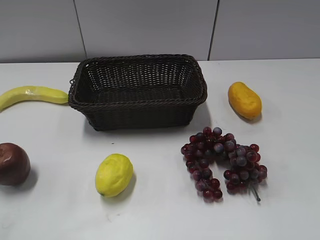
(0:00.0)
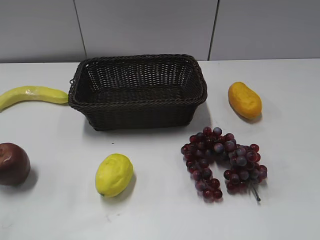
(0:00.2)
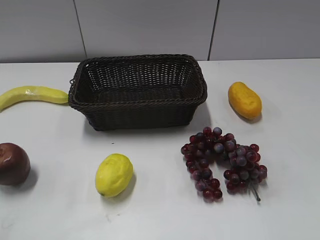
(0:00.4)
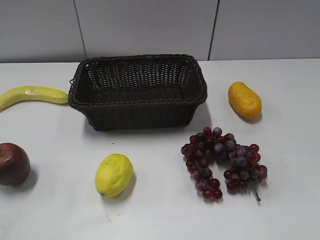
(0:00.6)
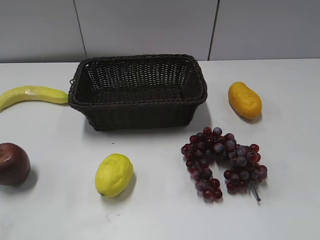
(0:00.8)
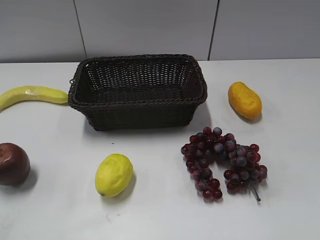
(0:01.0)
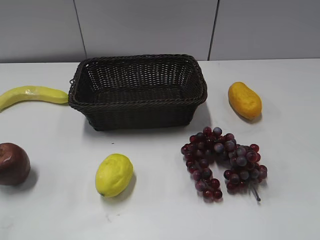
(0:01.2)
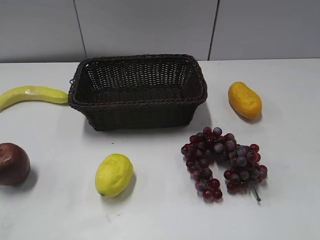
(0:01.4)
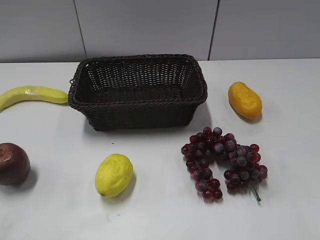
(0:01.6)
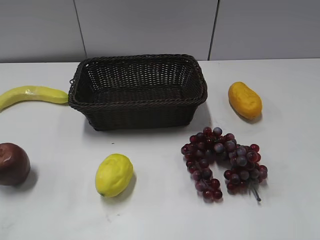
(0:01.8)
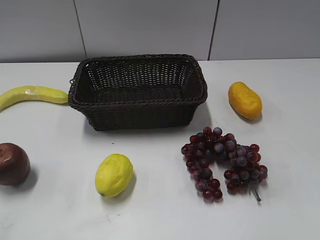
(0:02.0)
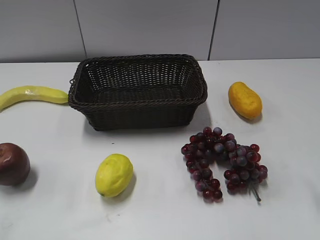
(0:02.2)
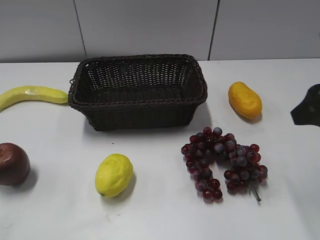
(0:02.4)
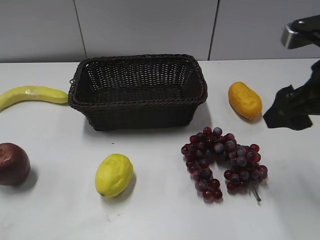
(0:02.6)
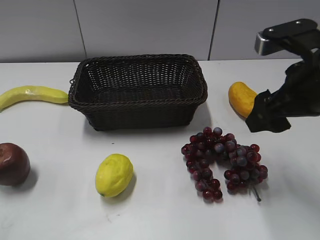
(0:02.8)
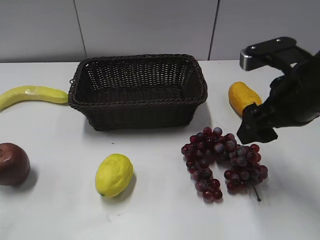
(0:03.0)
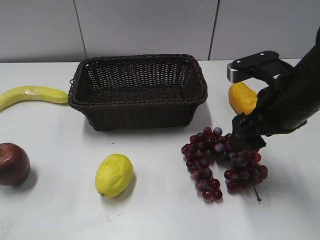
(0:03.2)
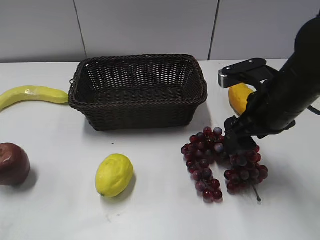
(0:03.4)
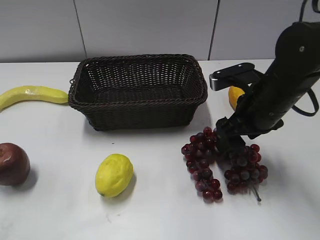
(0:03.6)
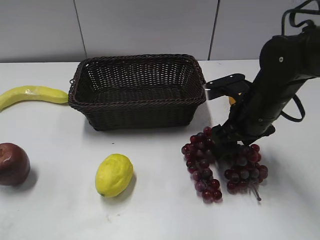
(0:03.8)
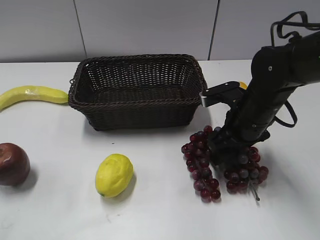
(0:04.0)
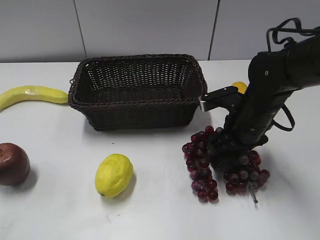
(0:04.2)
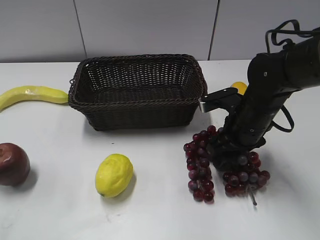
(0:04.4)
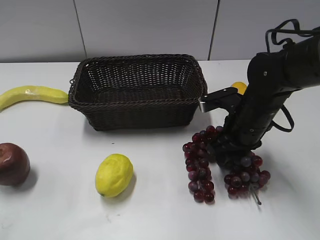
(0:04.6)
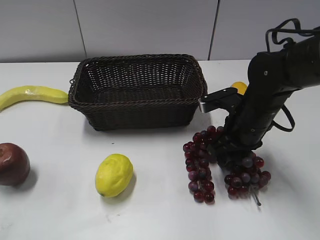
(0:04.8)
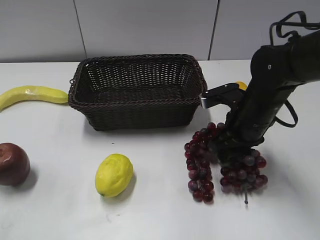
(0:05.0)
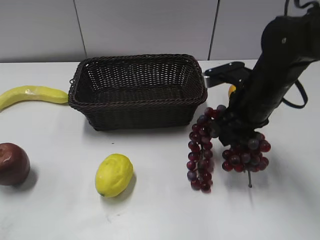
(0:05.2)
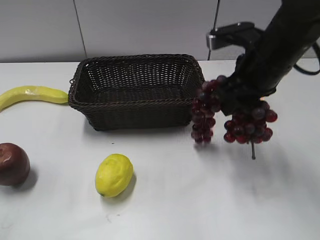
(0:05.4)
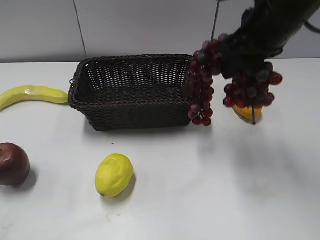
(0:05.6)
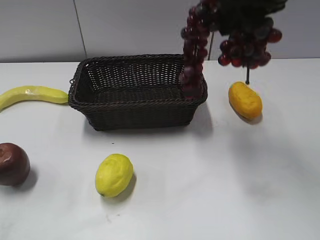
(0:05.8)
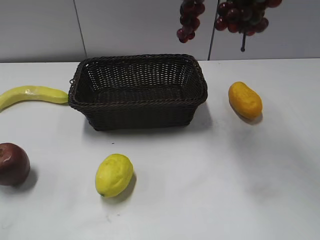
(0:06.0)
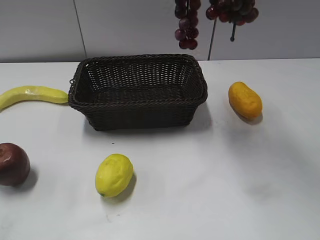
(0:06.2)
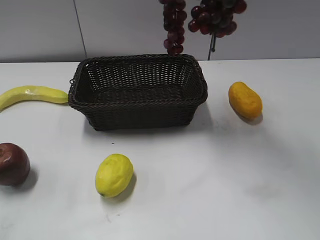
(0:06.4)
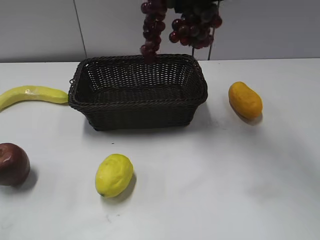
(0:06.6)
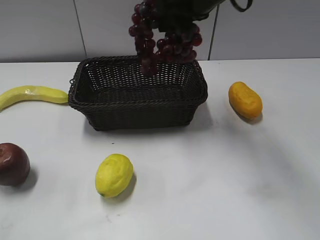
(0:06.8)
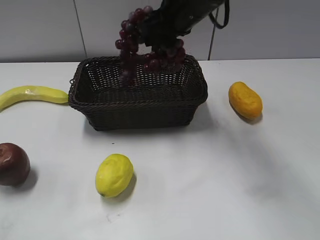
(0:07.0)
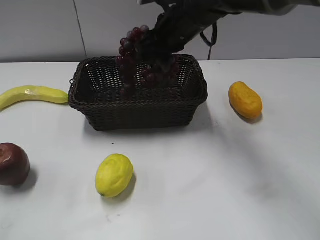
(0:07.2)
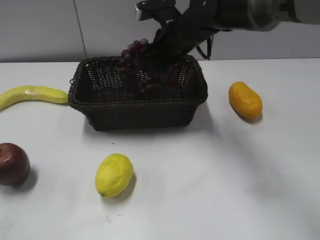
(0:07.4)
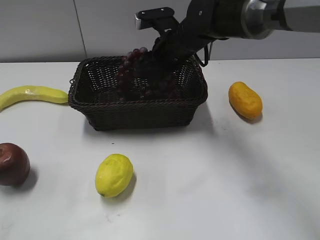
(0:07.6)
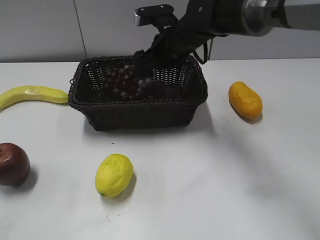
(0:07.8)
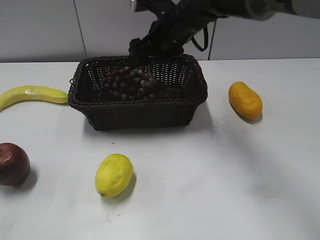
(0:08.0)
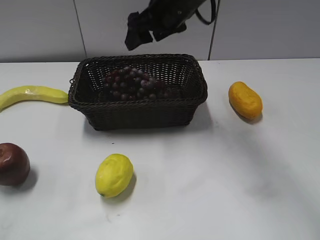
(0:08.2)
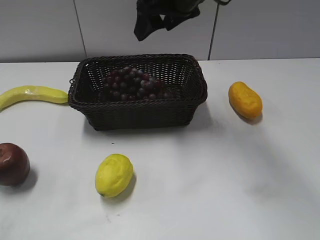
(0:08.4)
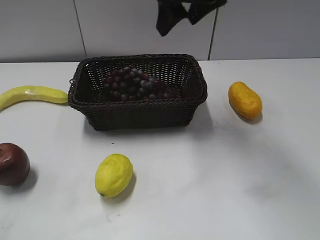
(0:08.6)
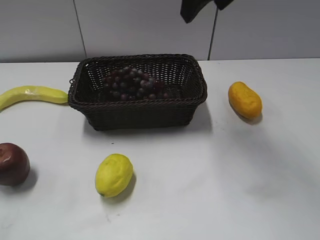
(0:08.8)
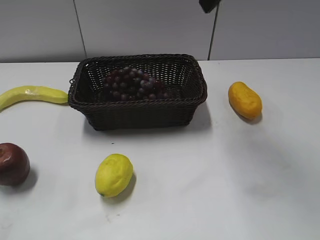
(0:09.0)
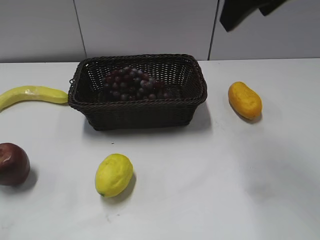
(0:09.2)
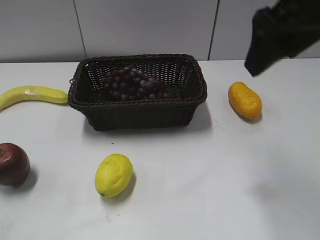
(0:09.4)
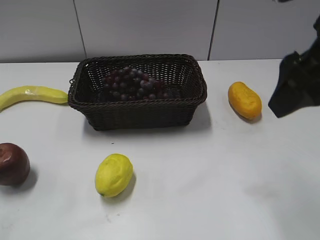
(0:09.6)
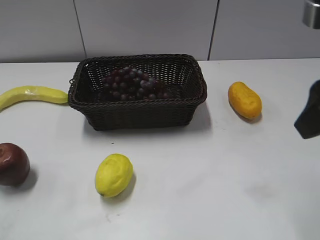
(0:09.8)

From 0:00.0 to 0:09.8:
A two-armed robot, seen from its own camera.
Step, from 0:02.2 to 0:05.2: Grasp the grape with right gripper.
Step, from 0:05.4 to 0:08.2: Place the grape in the basket with right gripper.
From 0:01.4 to 0:02.8: The right gripper travels forward and to the left by roughly 20 cm.
From 0:02.8 to 0:04.2: The right gripper heads downward and forward, covering some 15 cm.
From 0:04.2 to 0:05.6: The right gripper is displaced upward by approximately 20 cm, and closes.
From 0:05.6 to 0:07.0: The right gripper heads to the left and forward, covering approximately 15 cm, and travels upward and back again, approximately 10 cm each way.
From 0:07.0 to 0:08.4: The right gripper opens its fingers.
From 0:08.4 to 0:09.8: The right gripper shifts about 25 cm backward and to the right.

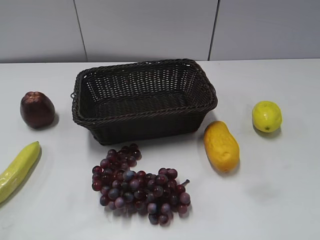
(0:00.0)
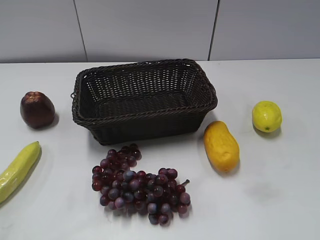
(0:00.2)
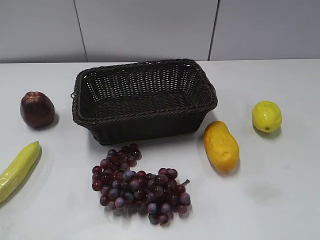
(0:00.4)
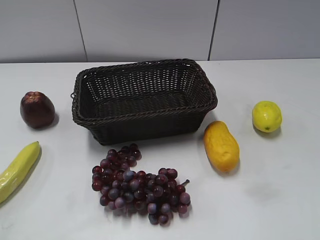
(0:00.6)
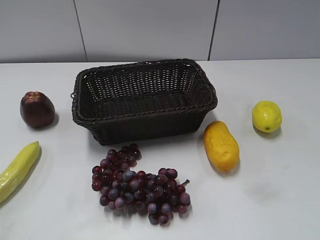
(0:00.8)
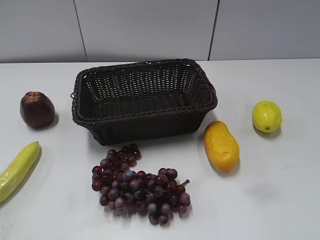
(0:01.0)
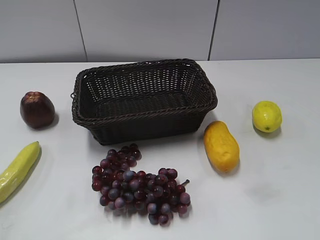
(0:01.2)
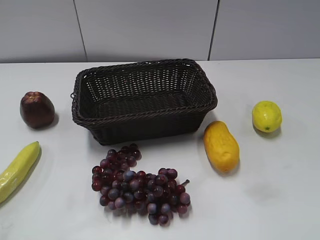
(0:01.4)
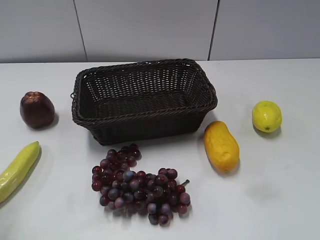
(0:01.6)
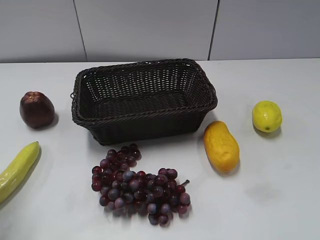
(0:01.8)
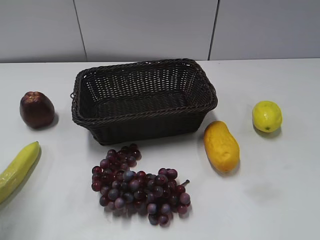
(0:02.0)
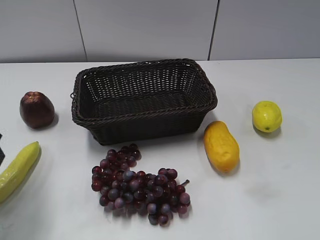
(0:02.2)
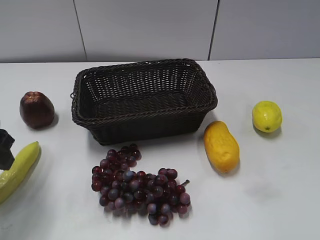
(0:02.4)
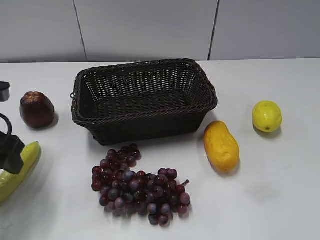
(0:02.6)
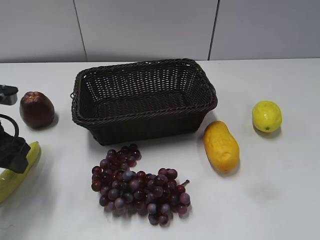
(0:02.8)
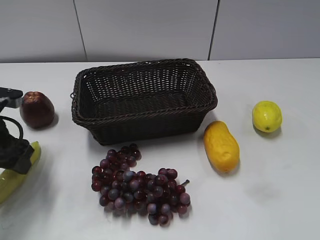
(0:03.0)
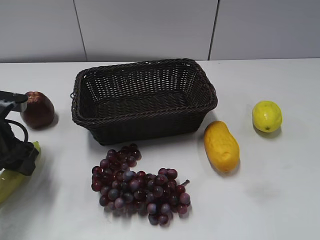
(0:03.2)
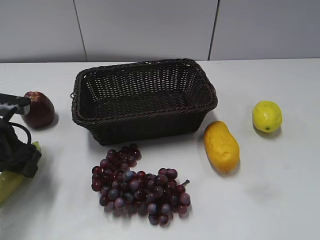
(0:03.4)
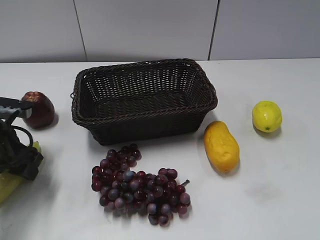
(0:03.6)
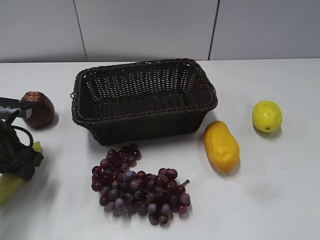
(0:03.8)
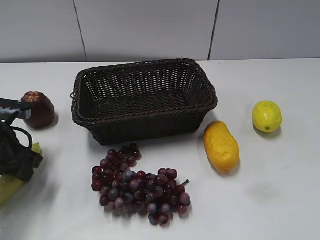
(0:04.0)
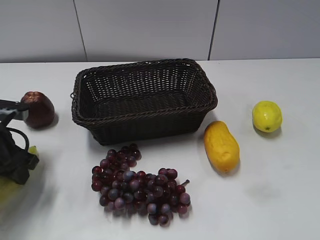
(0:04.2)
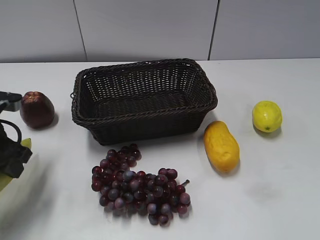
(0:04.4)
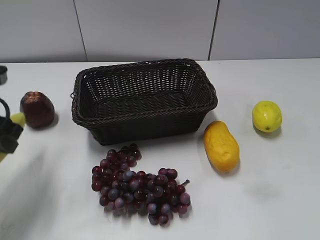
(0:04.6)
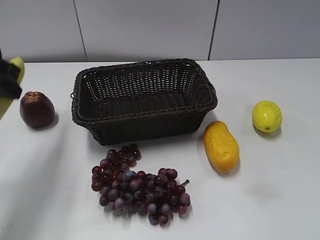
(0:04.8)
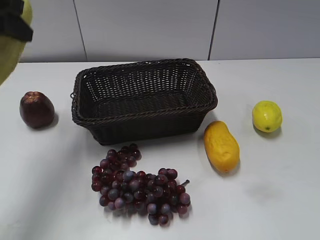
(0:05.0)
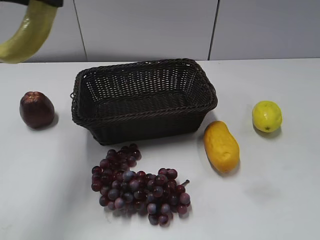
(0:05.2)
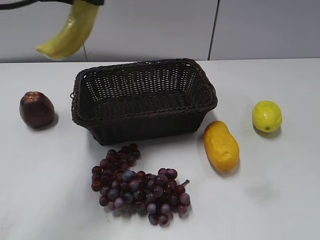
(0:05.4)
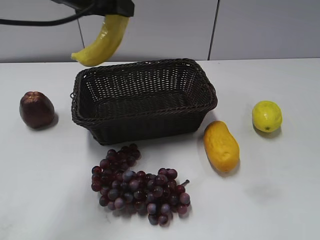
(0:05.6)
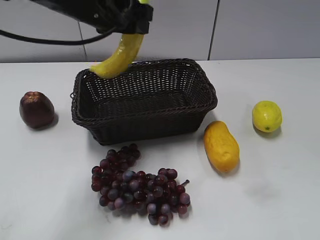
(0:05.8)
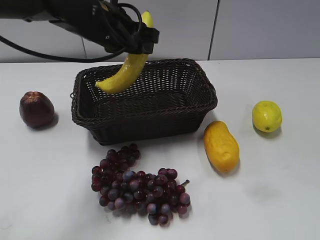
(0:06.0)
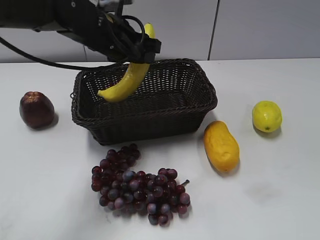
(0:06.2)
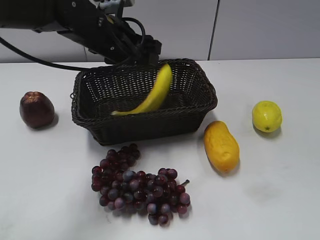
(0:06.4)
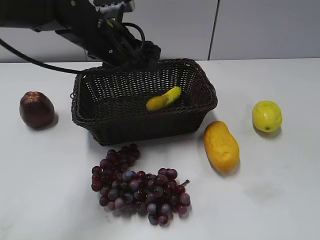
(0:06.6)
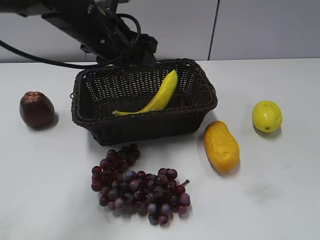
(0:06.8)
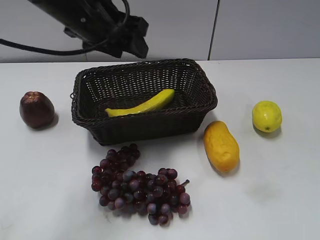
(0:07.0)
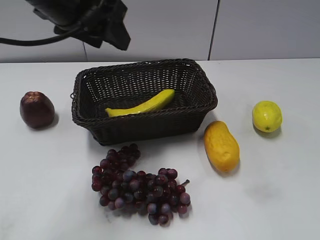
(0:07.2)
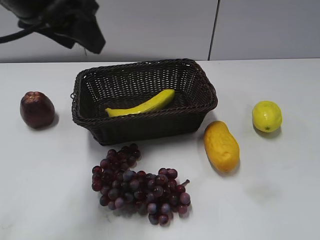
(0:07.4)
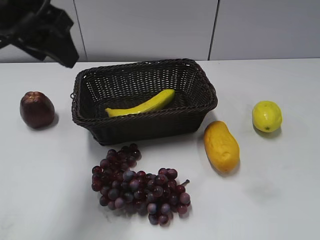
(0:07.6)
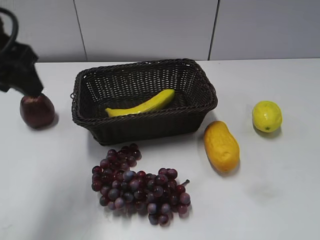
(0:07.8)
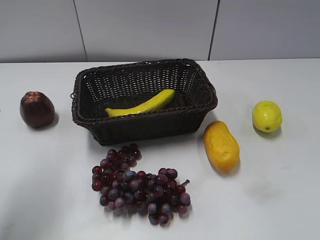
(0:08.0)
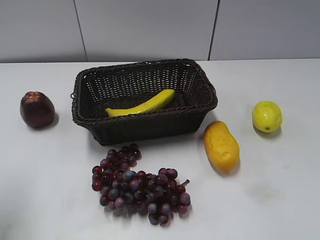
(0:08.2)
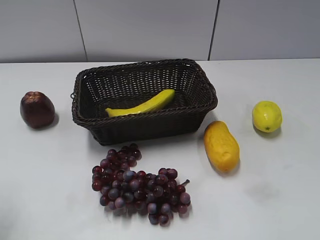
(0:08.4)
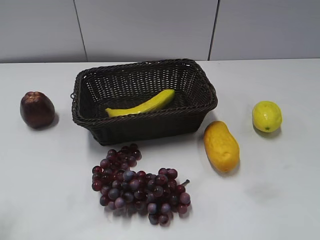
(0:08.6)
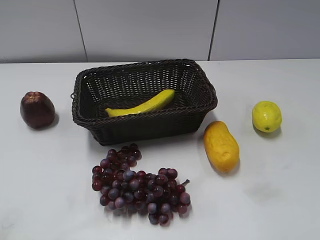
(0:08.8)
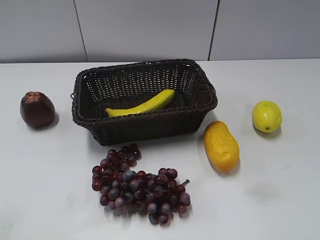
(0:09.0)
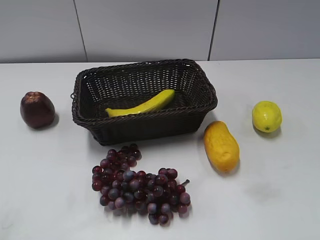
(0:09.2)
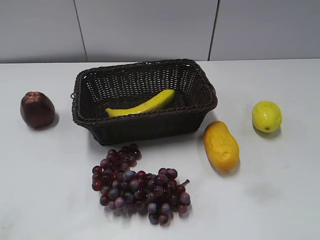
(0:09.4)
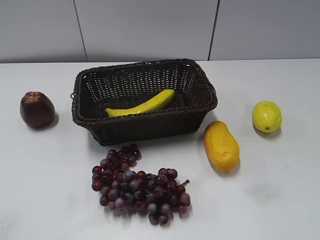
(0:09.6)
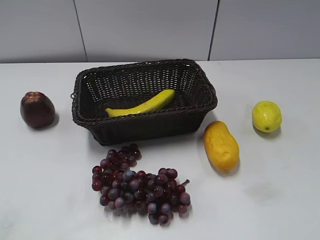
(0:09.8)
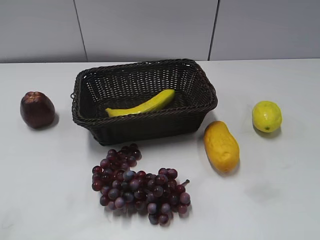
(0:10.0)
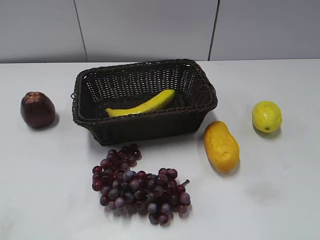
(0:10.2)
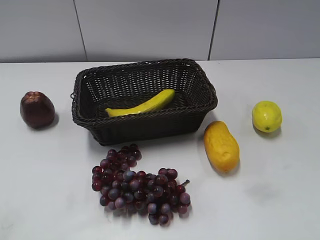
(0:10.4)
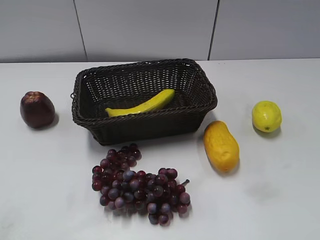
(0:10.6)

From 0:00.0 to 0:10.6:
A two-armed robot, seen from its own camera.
Step, from 0:02.2 to 0:03.8: Grasp the banana with left gripper.
Step, from 0:04.0 to 0:06.4: Place the banana in the basket with left gripper.
From 0:01.6 to 0:03.0: The left gripper travels downward and forward by some 20 cm.
From 0:03.0 to 0:04.6: The left gripper goes about 5 cm upward, and closes up.
From 0:04.6 to 0:06.0: The left gripper heads to the right and forward, covering about 20 cm.
From 0:06.0 to 0:07.6: The left gripper travels backward, upward and to the left by some 15 cm, and opens.
From 0:07.6 to 0:09.0: The left gripper is displaced backward and to the left by roughly 25 cm.
